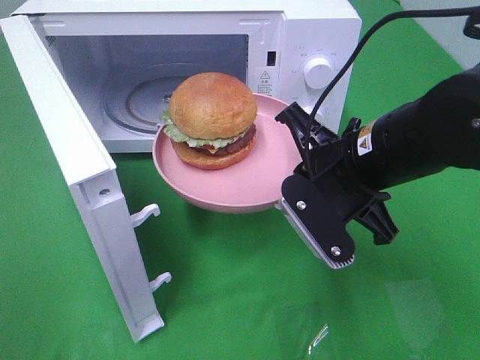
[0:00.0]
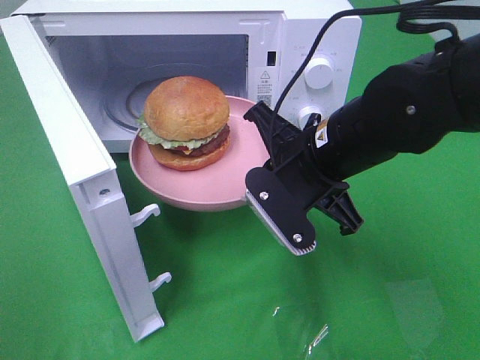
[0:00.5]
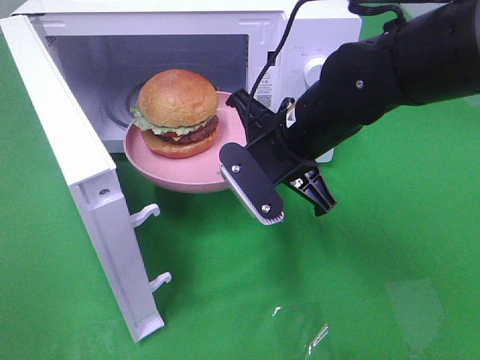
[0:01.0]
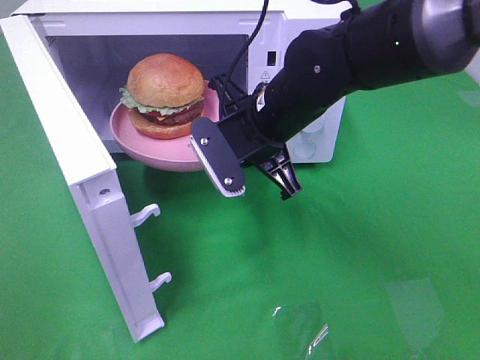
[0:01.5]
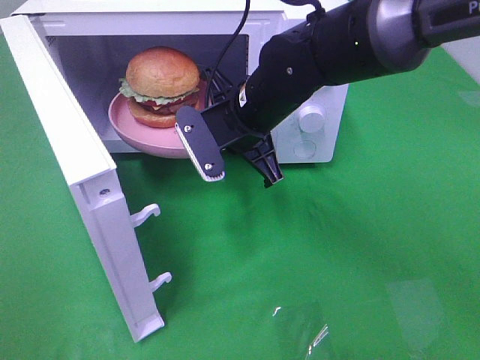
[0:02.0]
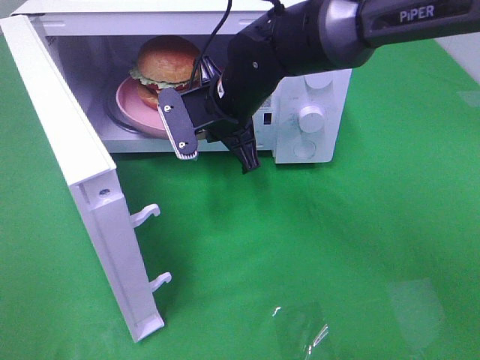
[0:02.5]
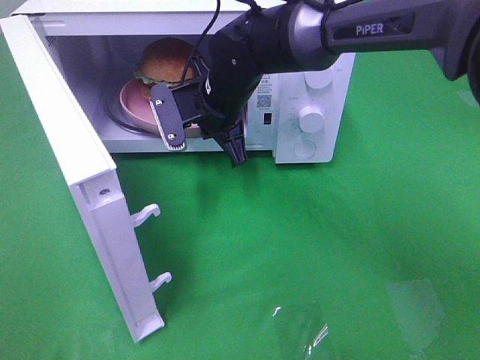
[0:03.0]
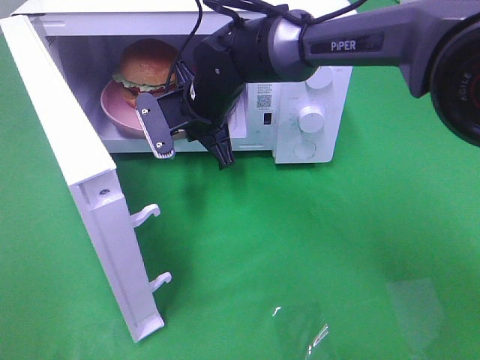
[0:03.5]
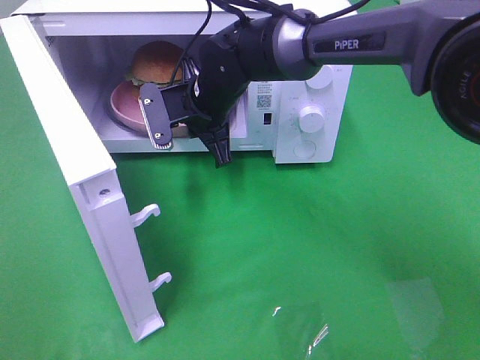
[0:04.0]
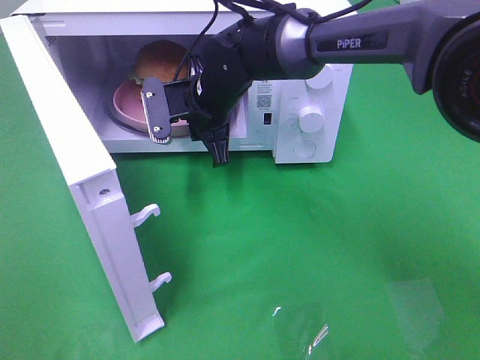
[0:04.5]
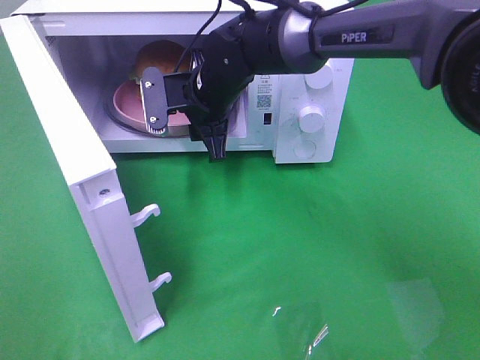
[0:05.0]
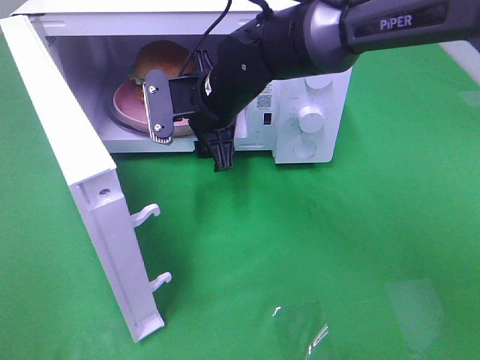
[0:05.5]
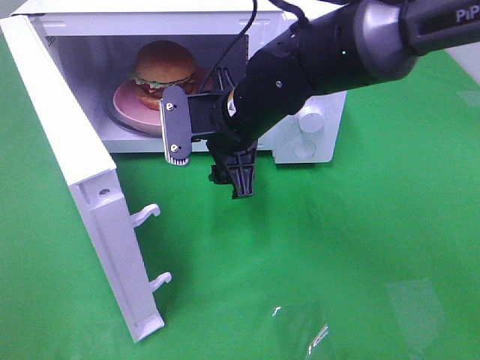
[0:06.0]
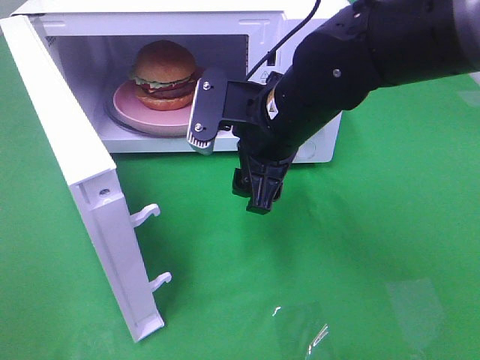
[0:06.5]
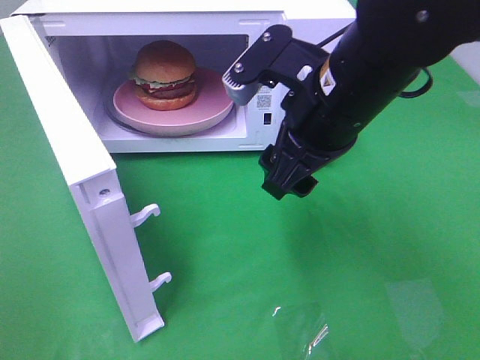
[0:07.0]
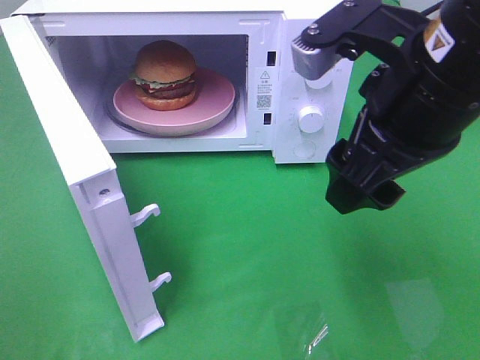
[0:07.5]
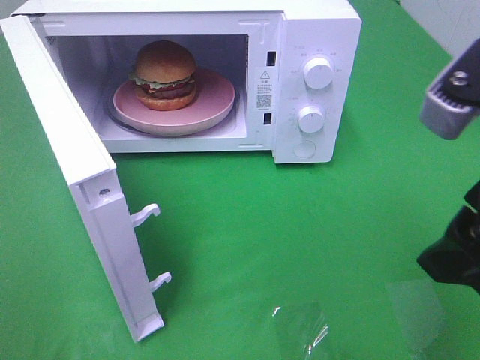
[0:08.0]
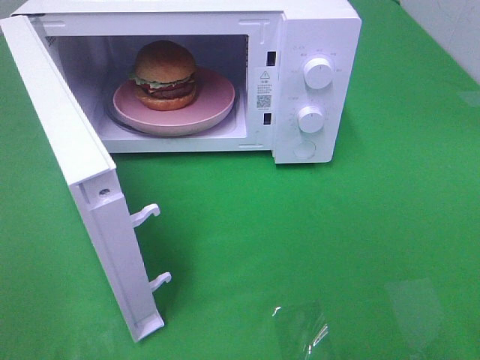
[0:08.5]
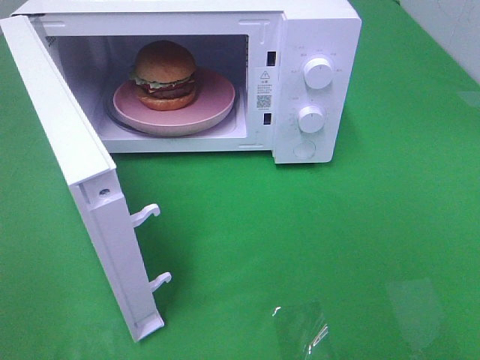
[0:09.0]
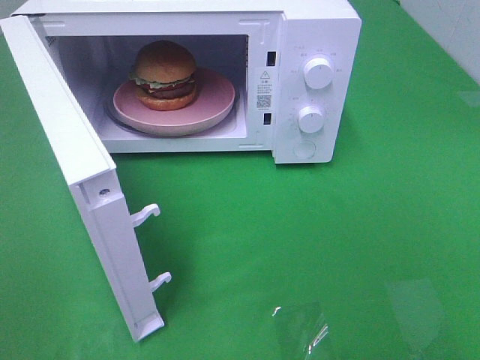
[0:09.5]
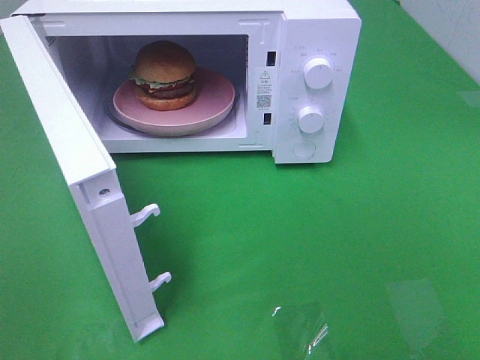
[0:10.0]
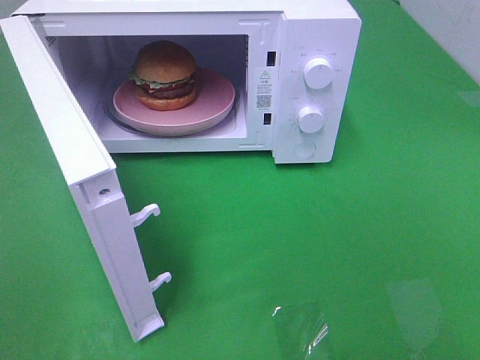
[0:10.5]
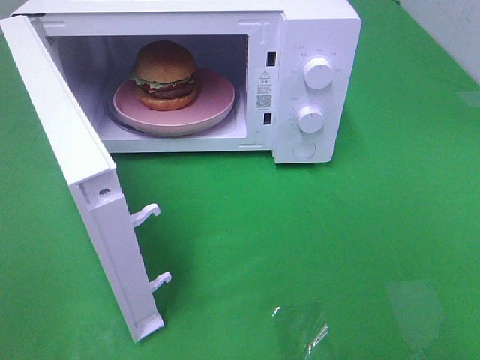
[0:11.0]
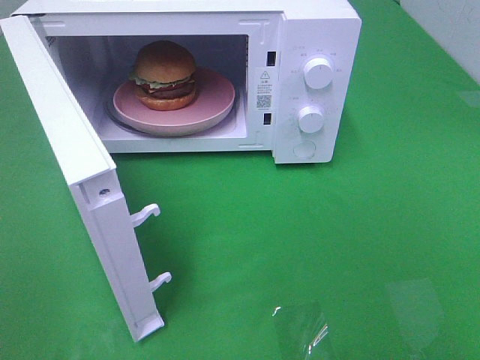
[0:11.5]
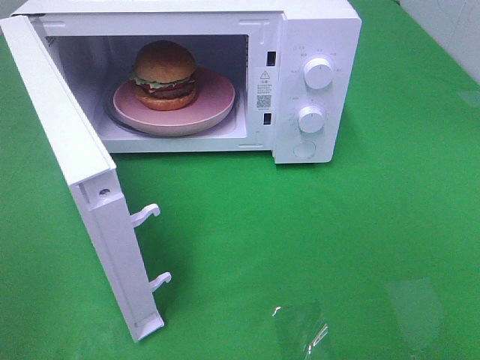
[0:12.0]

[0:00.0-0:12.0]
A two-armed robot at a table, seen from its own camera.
Task of the whole recording: Heat the burger.
Step, 0.0 to 4.5 s: Right hand: place the plate in the microwave.
0.0 to 2.0 s: The right gripper heads forward and to the left, covering roughly 15 cm.
2.0 to 4.0 s: The right gripper goes approximately 10 cm forward and to the left.
4.0 to 6.0 s: The right gripper shifts about 10 cm backward, and opens up.
6.0 to 8.0 s: The right gripper goes some 30 cm backward, to the right and upward.
8.0 to 10.0 s: The right gripper is displaced backward and to the right by approximately 15 cm.

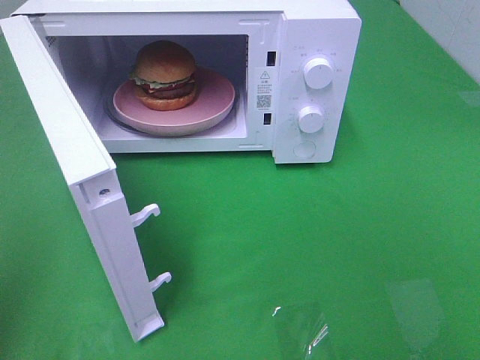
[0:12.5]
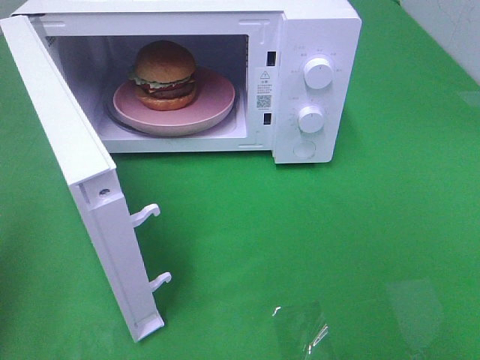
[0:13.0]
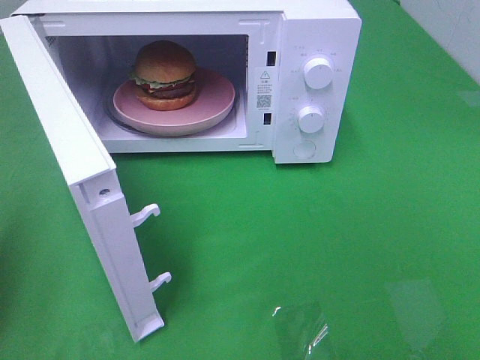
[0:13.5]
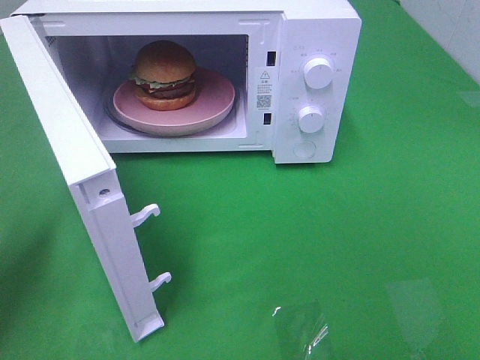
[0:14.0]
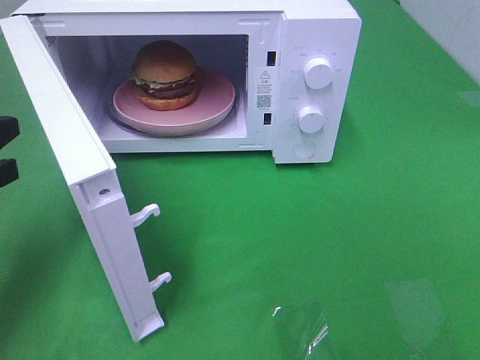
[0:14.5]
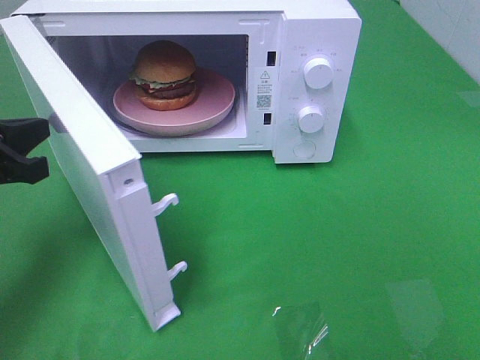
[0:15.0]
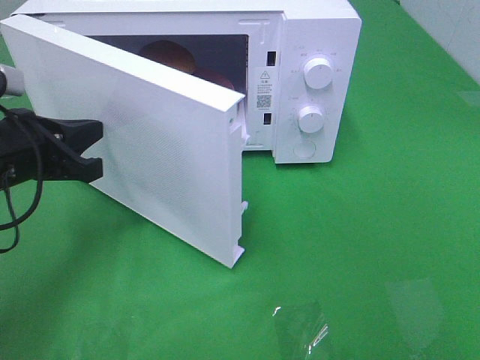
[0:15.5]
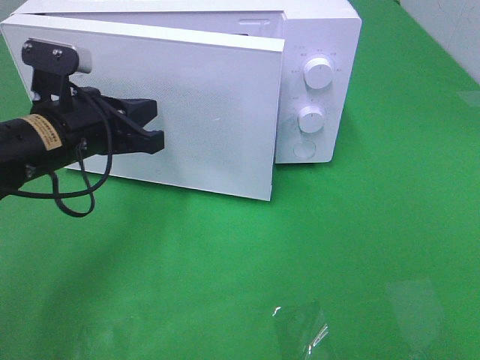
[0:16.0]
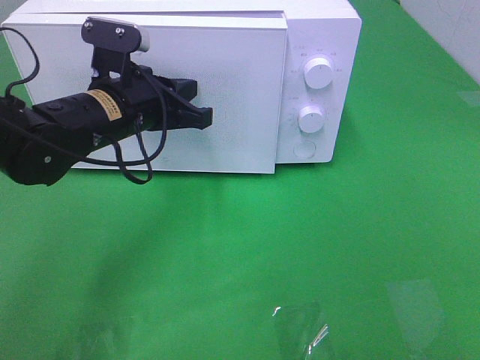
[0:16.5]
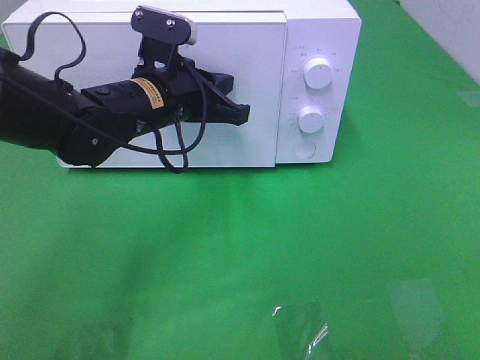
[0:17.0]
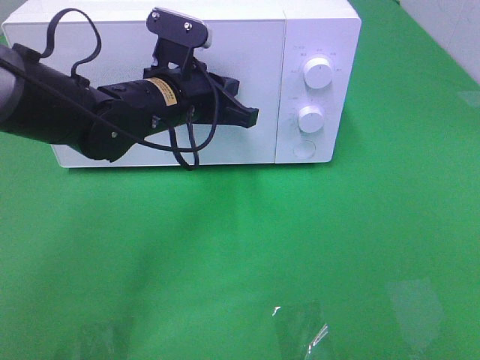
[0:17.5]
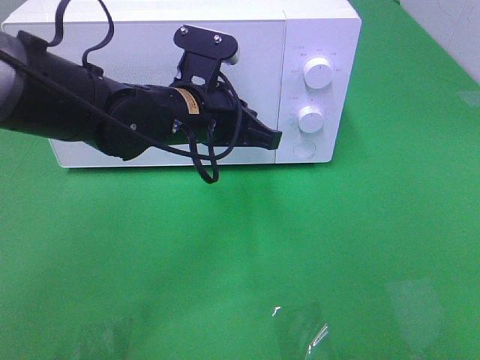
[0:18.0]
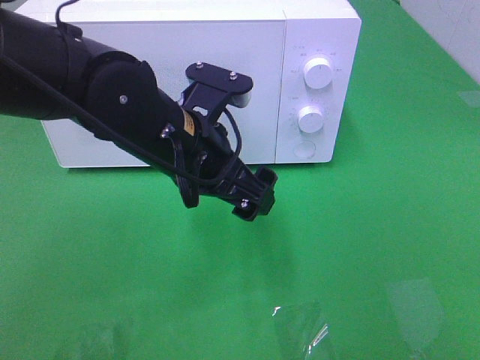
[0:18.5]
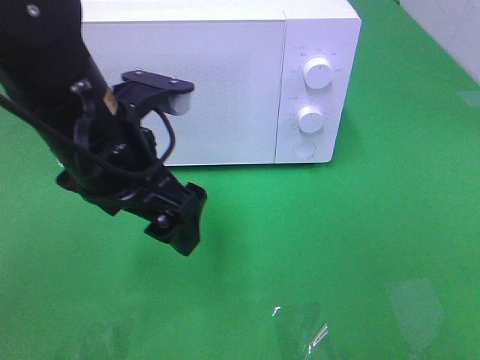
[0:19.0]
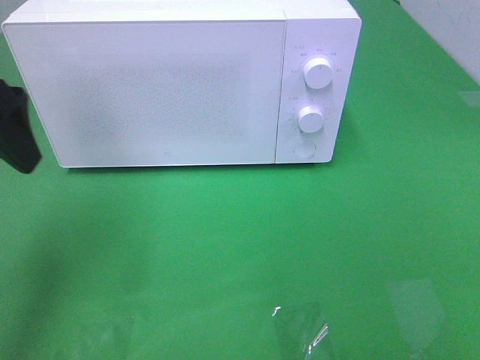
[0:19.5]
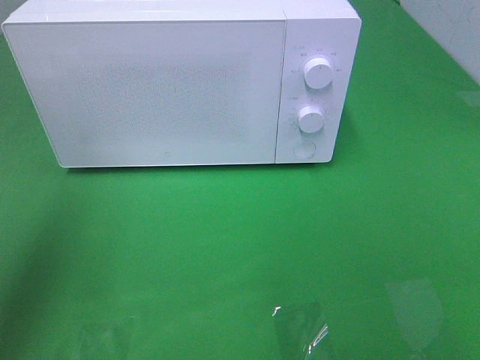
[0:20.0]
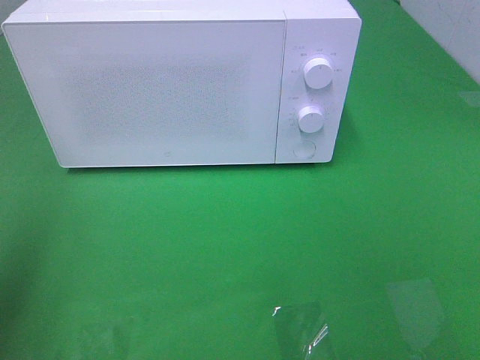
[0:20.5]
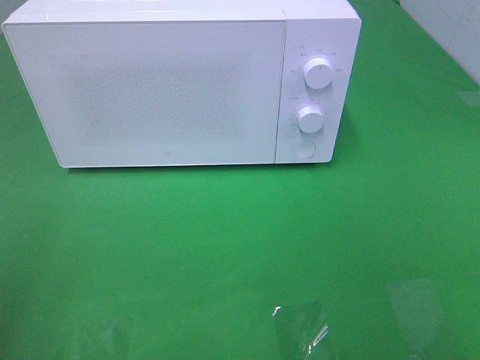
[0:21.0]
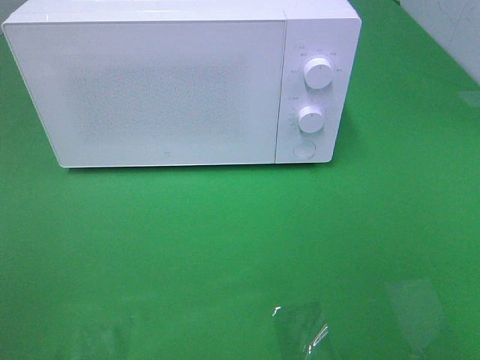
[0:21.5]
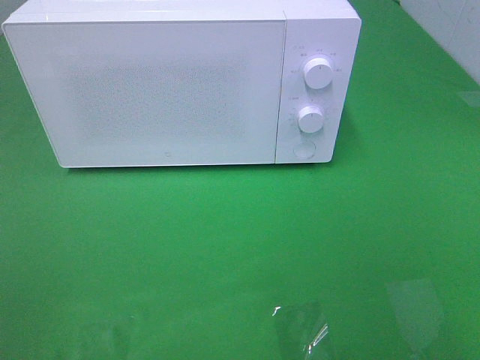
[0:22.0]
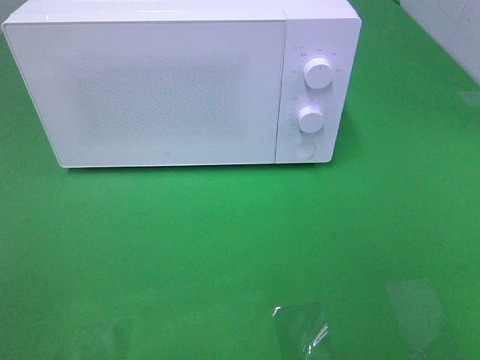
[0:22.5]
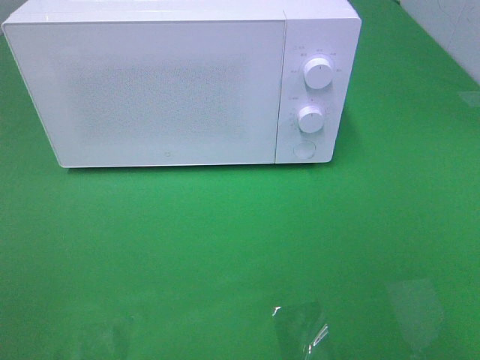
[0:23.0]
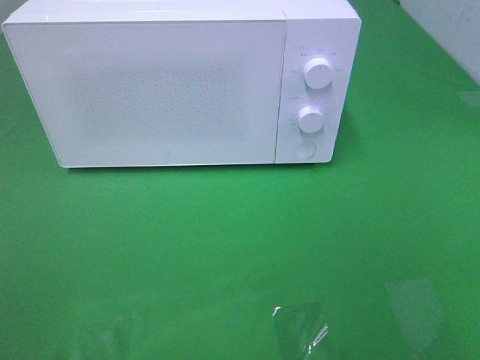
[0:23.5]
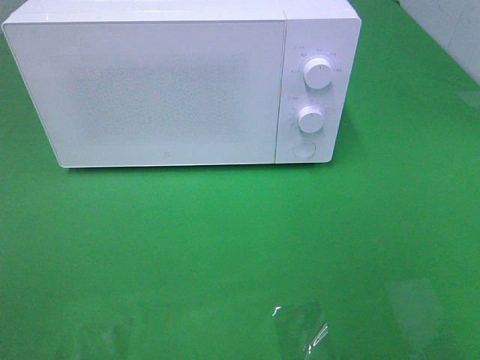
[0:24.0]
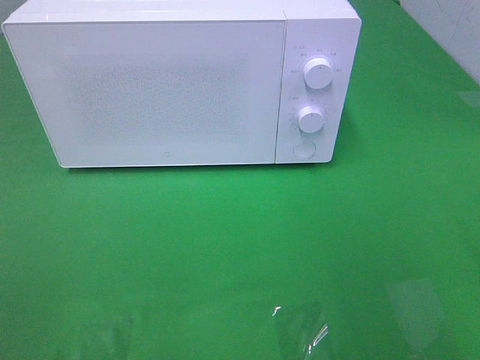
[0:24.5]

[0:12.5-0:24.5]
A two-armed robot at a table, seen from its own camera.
Task of the whole recording: Heat the burger.
Step, 12.5 to 18.0 s: Left hand: close the microwave door.
12.5 to 14.5 s: The left gripper heads forward and downward, covering about 20 cm.
14.5 to 16.5 s: The left gripper is displaced to the right and forward by roughly 20 cm.
16.5 to 18.5 s: The left gripper heads backward and to the right, covering some 10 cm, and opens.
18.5 to 20.5 s: The left gripper is displaced to the left, upward and backward by about 30 cm.
20.5 to 22.5 s: The left gripper goes about 15 cm backward.

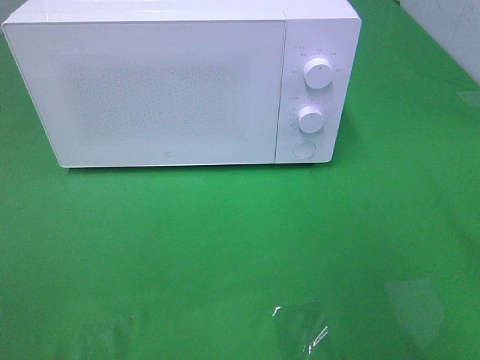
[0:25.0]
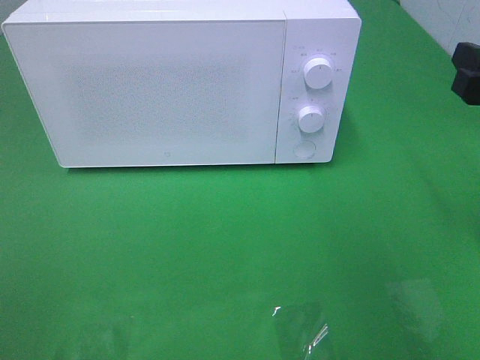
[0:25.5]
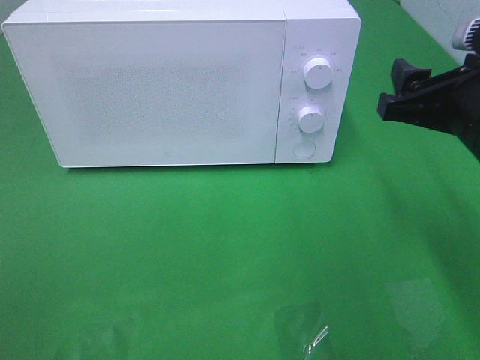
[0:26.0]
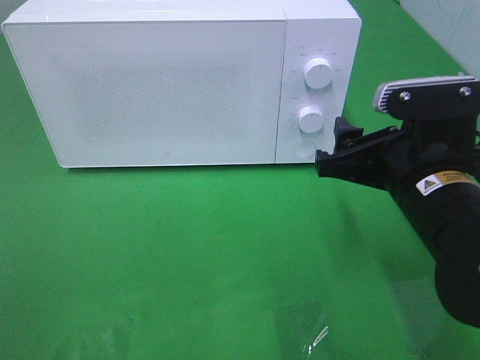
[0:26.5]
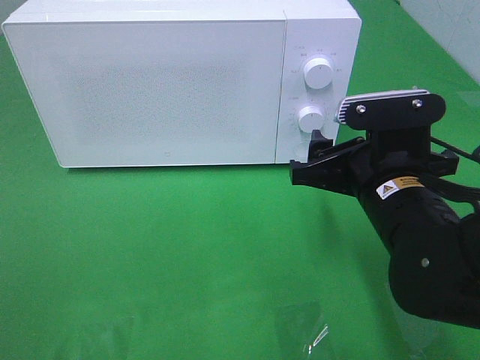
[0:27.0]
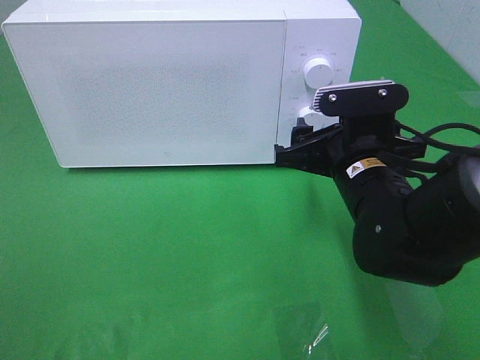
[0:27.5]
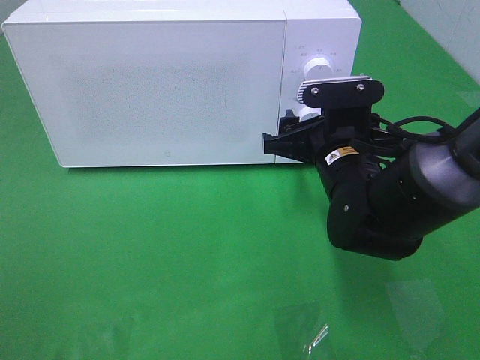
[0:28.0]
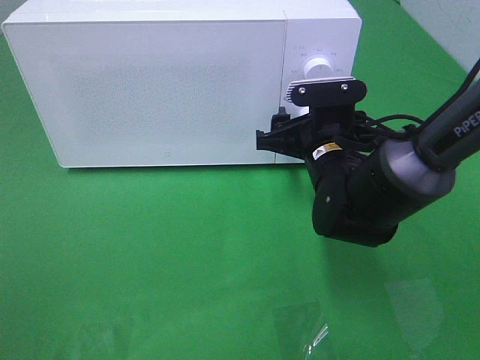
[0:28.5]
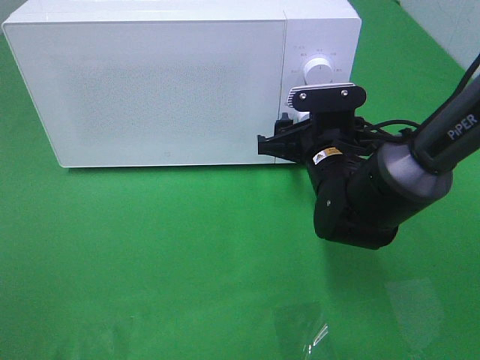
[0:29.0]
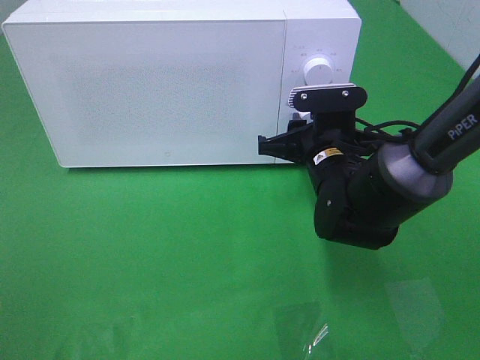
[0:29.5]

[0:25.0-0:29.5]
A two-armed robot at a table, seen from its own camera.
Task of the whole recording: Heat the burger.
25.0 to 27.0 s: The right gripper goes about 20 cm to the left, downward and forward.
27.0 to 29.5 s: The right gripper goes roughly 10 cm forward, and closes.
